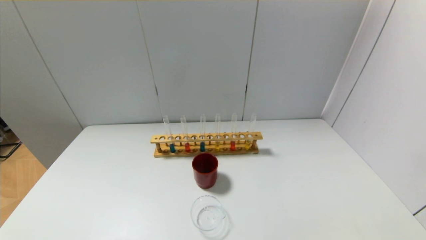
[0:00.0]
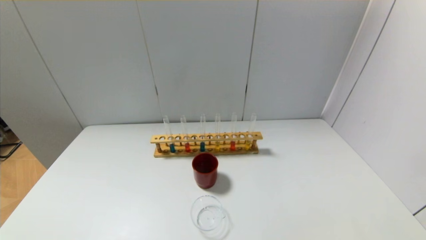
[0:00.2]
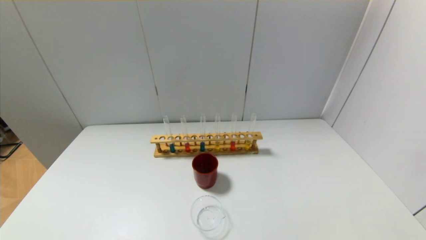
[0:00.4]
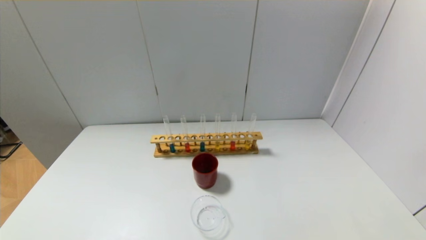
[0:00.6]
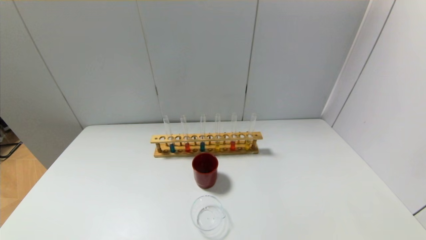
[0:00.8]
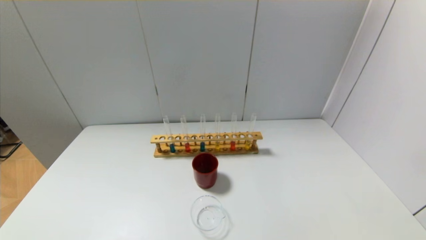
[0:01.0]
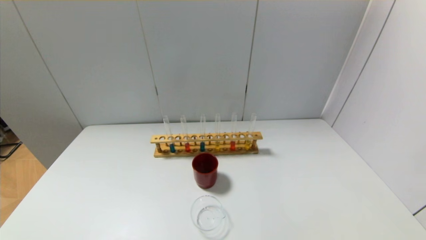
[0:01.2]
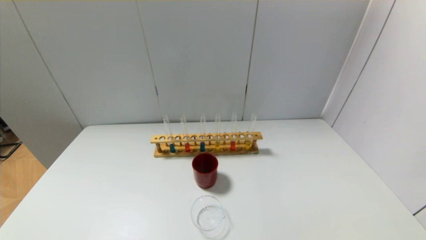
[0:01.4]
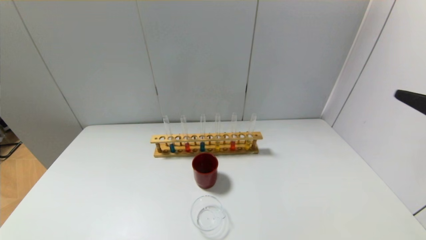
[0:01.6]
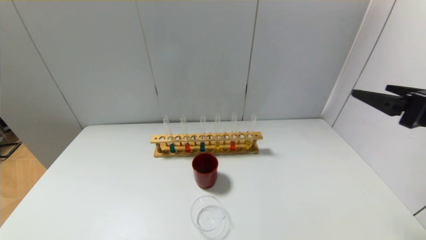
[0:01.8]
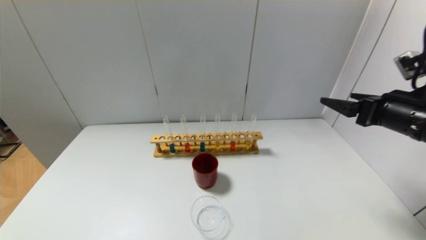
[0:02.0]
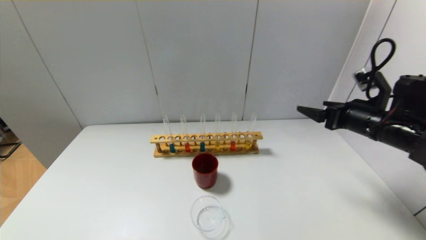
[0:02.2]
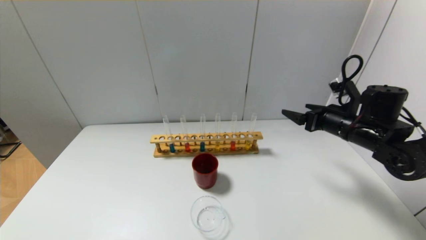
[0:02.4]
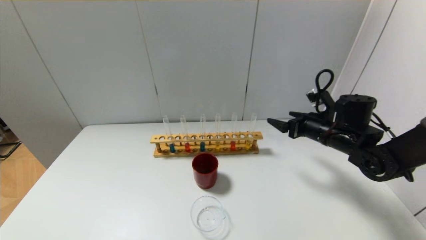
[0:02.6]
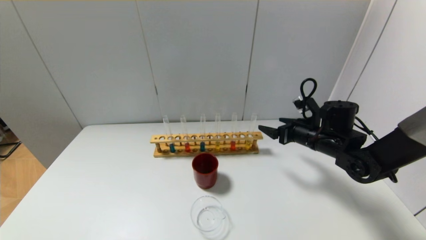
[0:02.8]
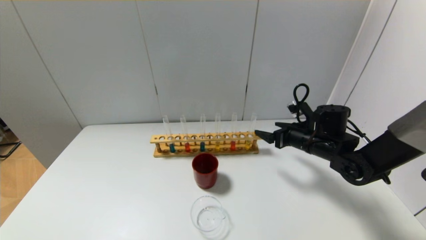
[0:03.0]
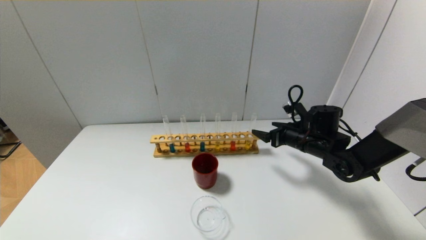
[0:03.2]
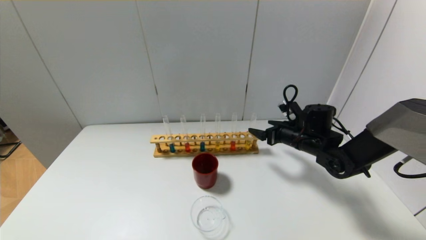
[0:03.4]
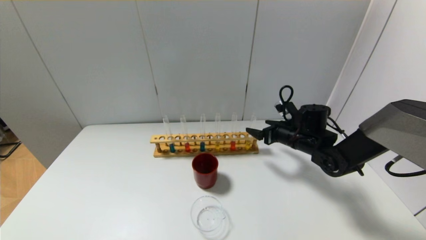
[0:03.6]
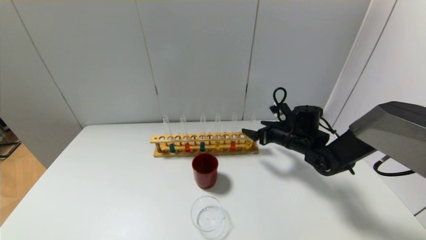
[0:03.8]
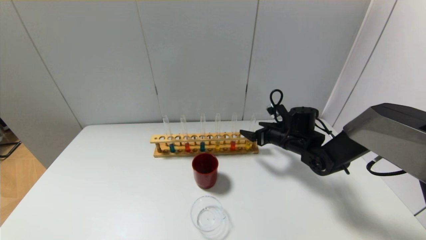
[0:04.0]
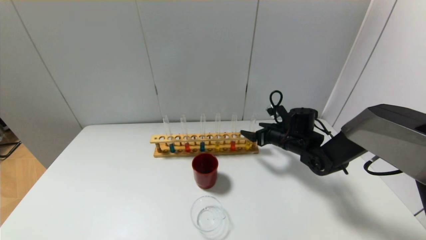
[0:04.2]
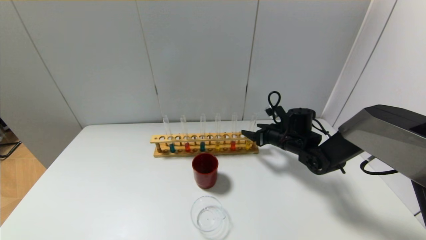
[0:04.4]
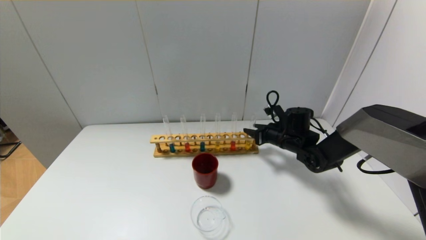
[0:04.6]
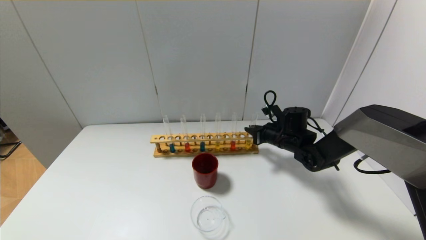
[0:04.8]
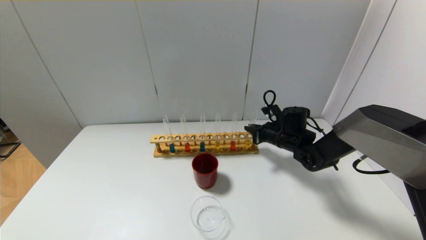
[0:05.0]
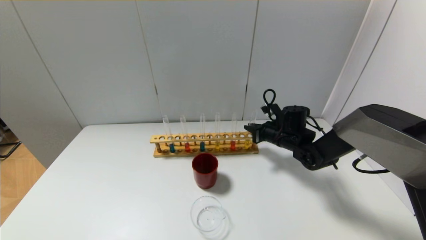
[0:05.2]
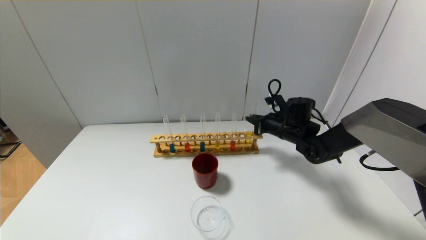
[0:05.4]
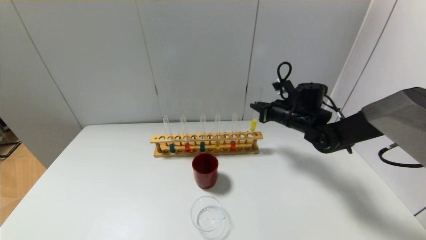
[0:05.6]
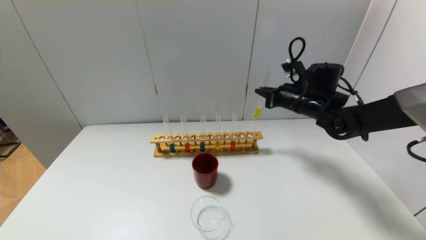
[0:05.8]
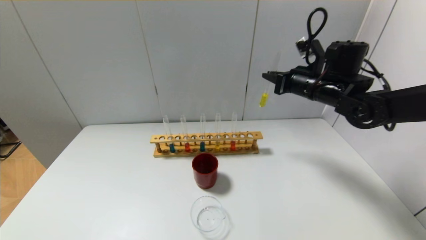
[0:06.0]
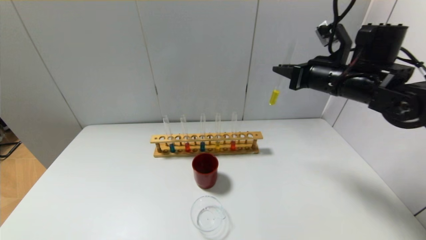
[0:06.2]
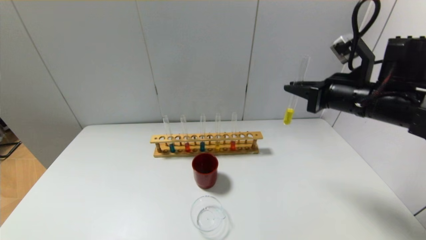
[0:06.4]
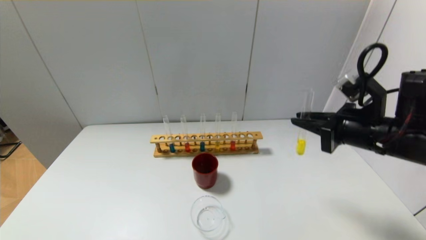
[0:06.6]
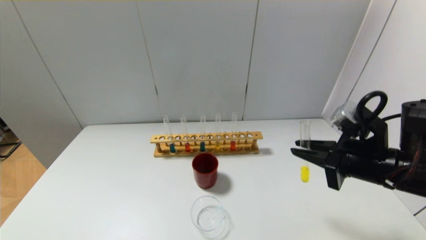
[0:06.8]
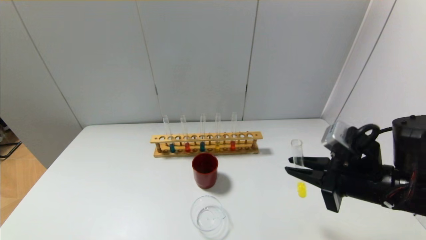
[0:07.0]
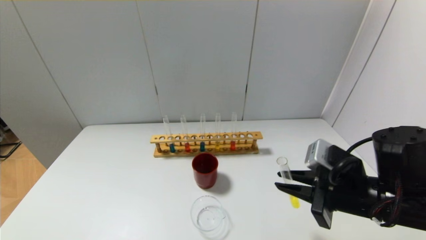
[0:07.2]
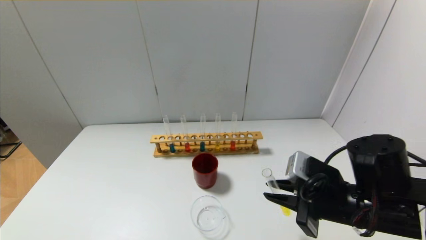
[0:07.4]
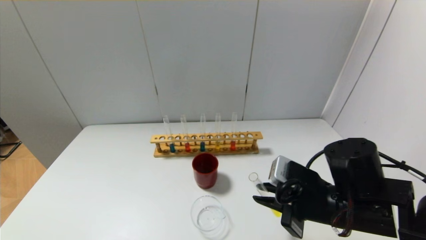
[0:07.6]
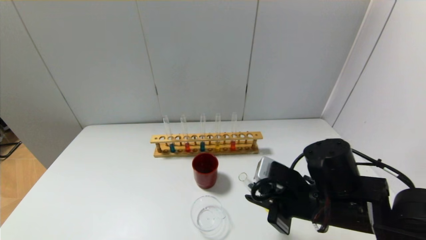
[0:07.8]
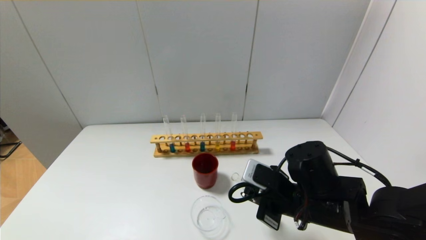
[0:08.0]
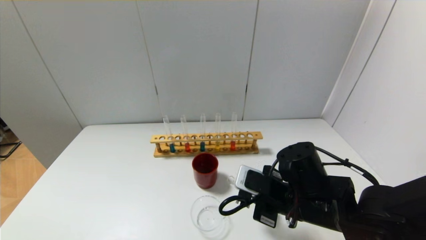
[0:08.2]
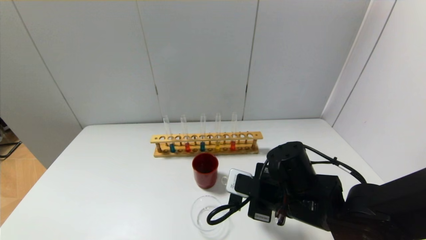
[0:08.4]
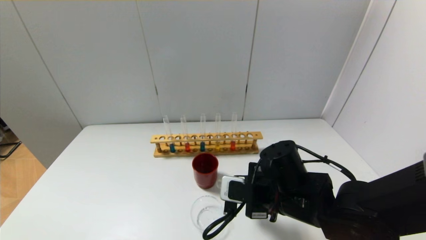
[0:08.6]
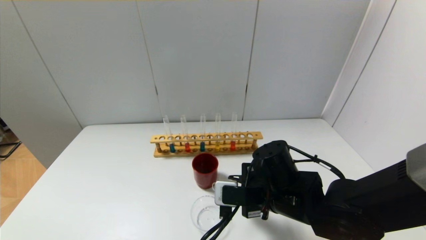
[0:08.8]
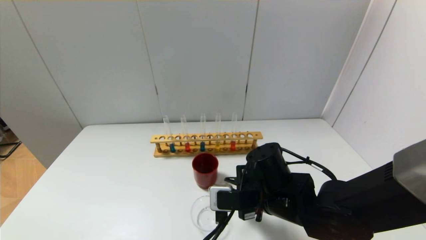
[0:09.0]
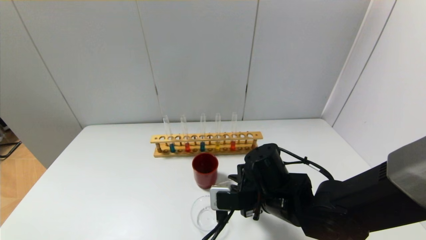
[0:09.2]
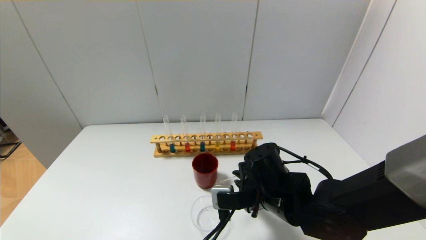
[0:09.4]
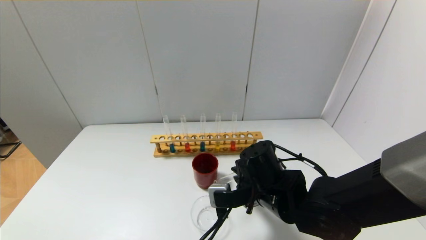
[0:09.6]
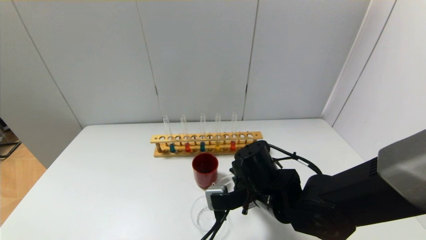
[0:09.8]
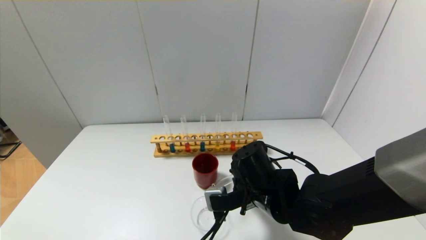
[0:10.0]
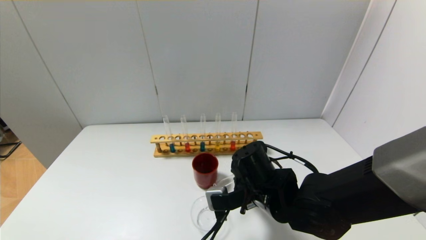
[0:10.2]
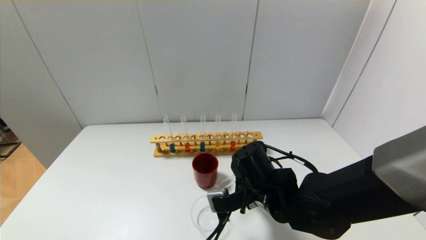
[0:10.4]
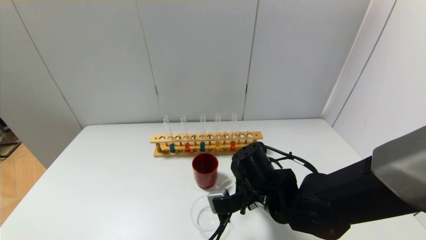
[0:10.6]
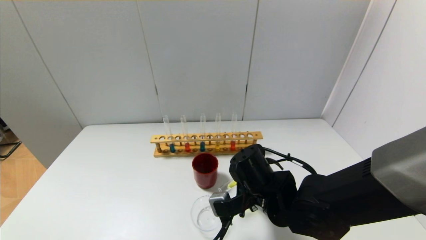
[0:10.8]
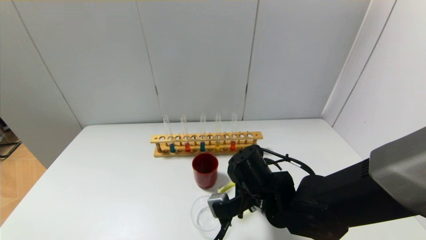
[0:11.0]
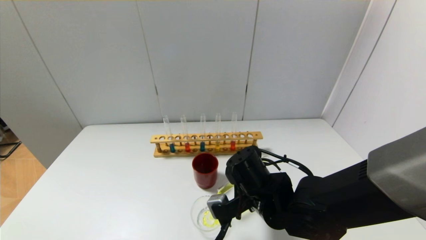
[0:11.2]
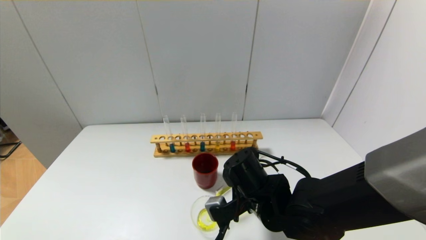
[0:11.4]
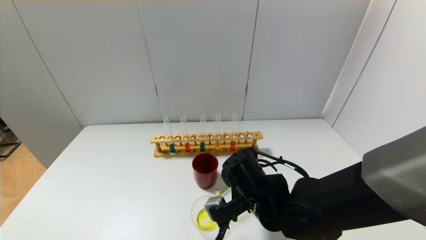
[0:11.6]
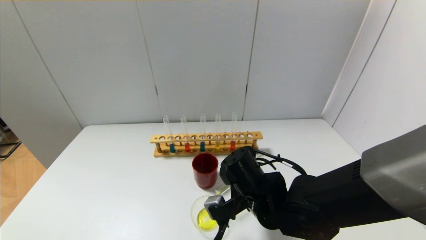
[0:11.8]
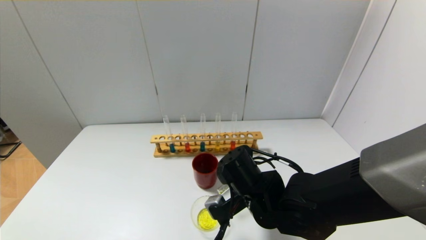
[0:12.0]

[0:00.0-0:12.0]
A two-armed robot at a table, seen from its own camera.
Step, 0:00.0 to 0:04.8: Grasp the yellow reagent with the right gripper.
0:01.6 to 0:03.0: The right gripper goes approximately 30 cm forward and downward.
0:03.0 to 0:04.4: The right gripper goes some 5 cm forward.
0:04.4 to 0:06.0: The right gripper moves upward, roughly 20 cm, and closes its fingers.
0:06.0 to 0:07.6: The right gripper shifts roughly 20 cm backward and downward.
0:07.6 to 0:09.0: The right gripper moves to the left, some 10 cm.
0:10.4 to 0:12.0: The grippers move only a little.

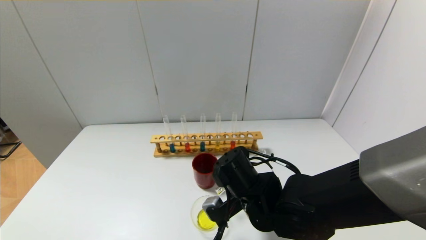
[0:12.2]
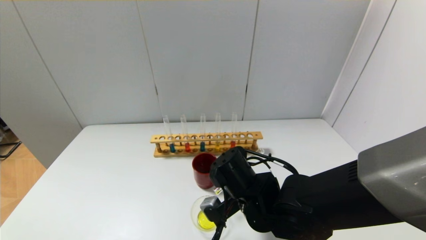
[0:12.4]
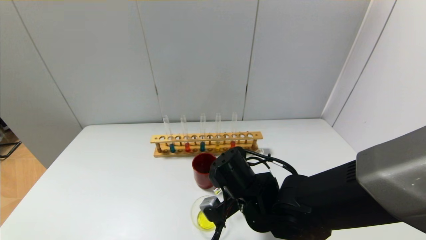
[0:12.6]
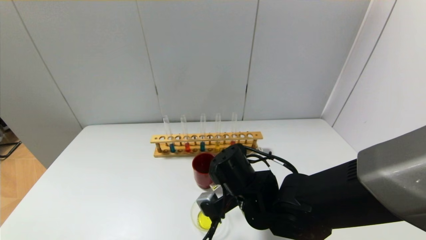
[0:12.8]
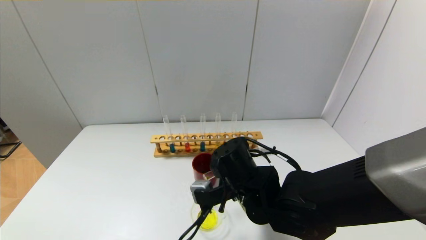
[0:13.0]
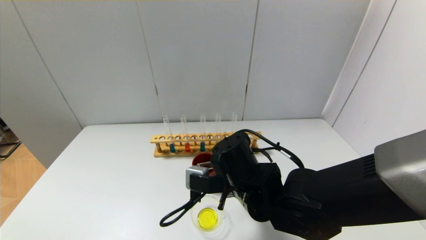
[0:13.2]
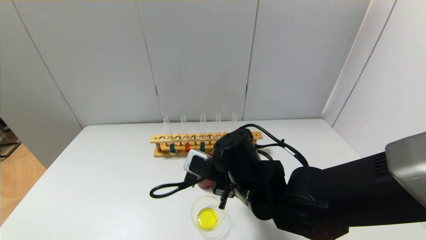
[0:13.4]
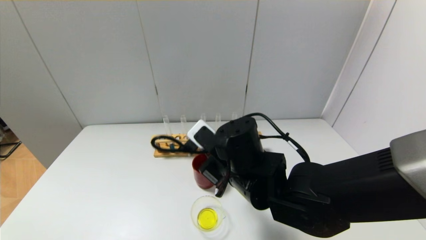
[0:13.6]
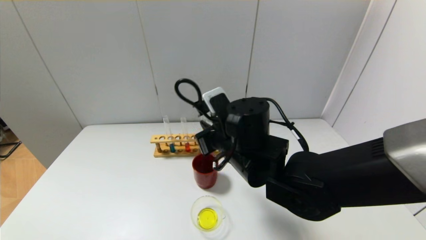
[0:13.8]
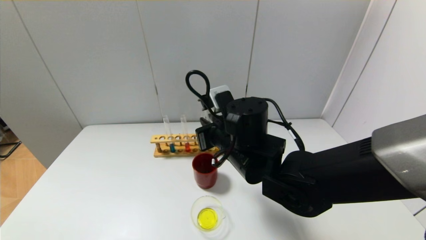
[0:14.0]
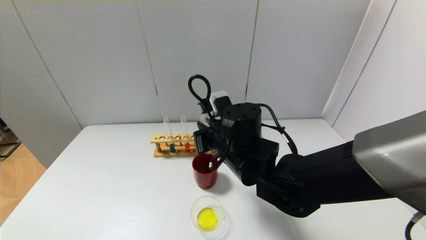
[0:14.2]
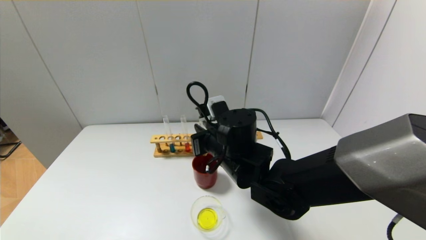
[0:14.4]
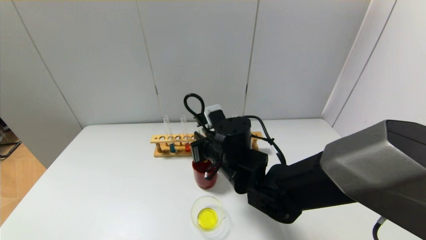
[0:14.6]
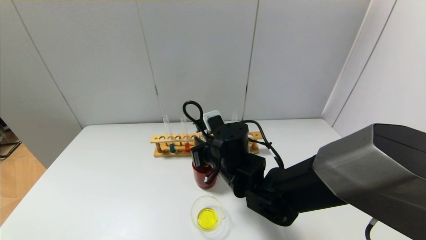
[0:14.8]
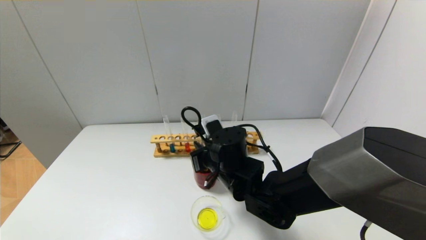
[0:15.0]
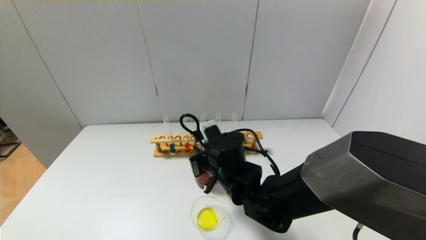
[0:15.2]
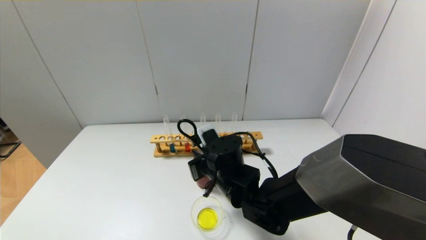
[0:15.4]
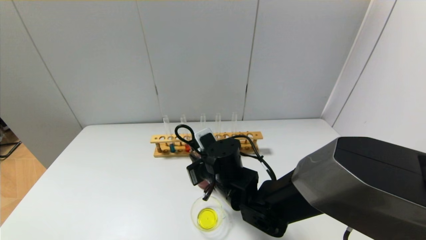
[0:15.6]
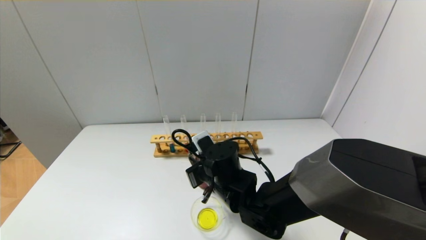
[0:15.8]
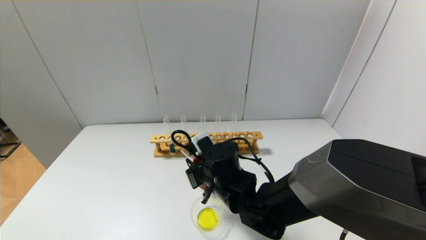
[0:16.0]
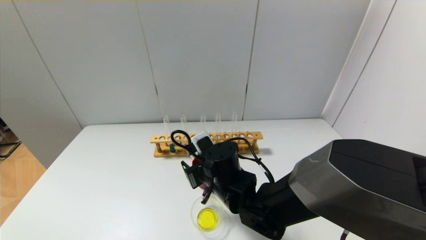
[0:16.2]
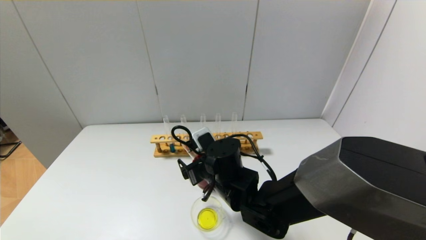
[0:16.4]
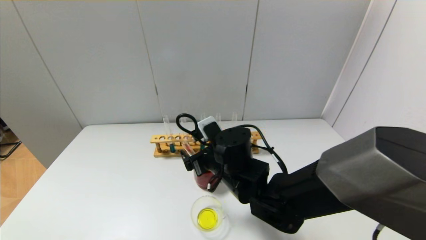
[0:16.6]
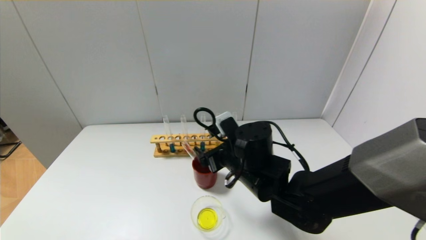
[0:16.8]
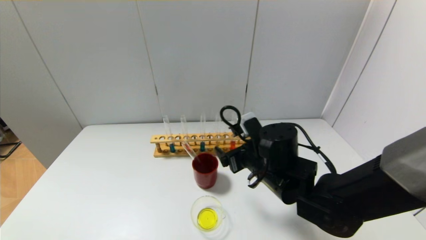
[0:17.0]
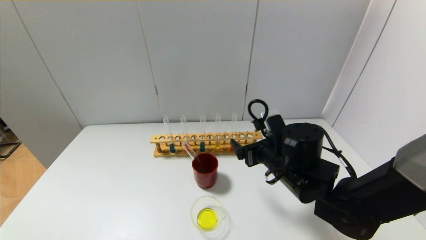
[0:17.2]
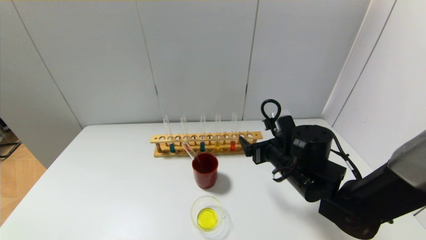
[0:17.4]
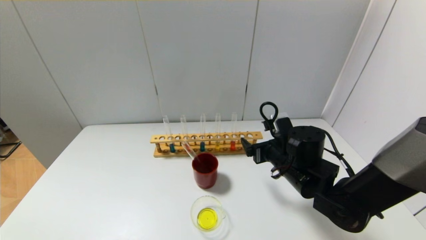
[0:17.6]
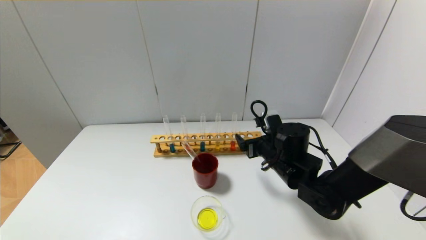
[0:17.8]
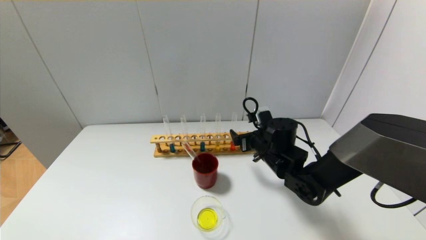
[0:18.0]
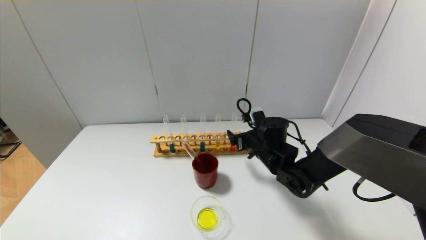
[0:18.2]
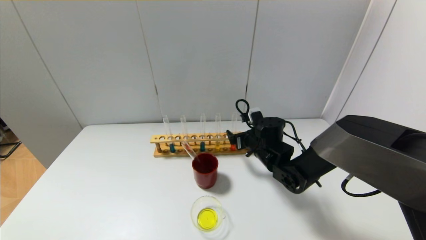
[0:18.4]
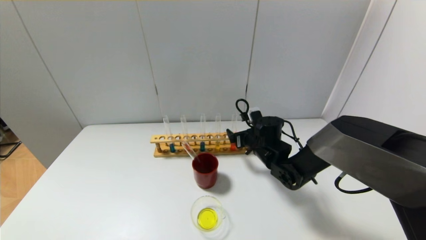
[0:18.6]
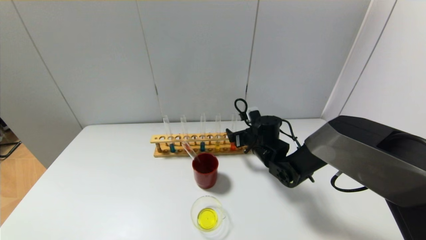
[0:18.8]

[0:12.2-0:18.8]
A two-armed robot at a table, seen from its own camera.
Step, 0:12.6 to 0:16.2: Place the test tube into the brown cup with the right gripper.
0:12.2 to 0:13.8: The right gripper is displaced upward by roughly 10 cm.
0:13.8 to 0:15.4: The right gripper is displaced downward by some 10 cm.
0:15.4 to 0:17.2: The right gripper shifts some 10 cm to the right, and opens its fingers.
0:17.2 to 0:18.8: The right gripper goes approximately 15 cm forward and downward.
